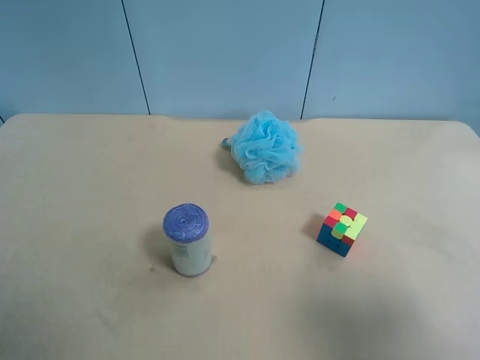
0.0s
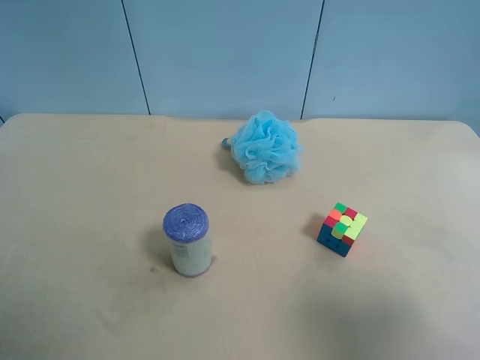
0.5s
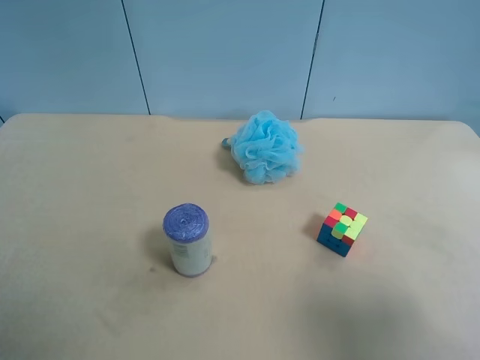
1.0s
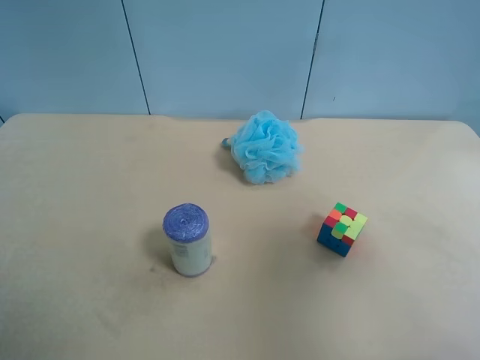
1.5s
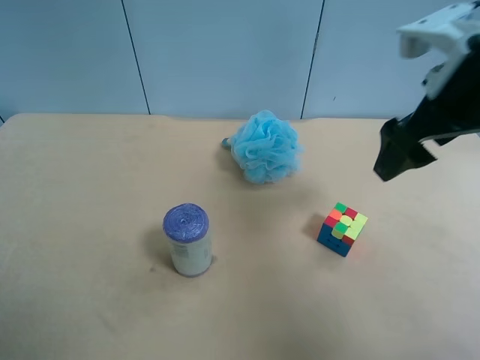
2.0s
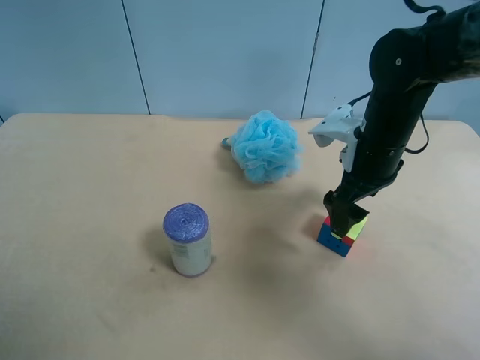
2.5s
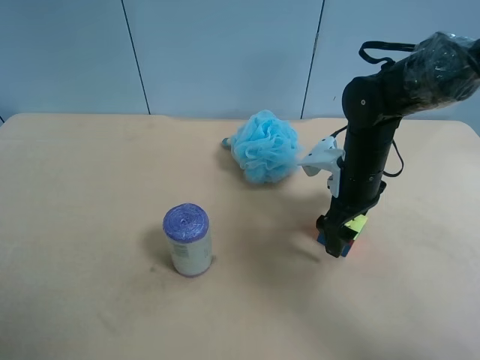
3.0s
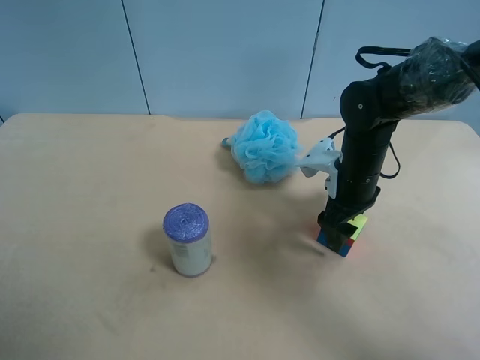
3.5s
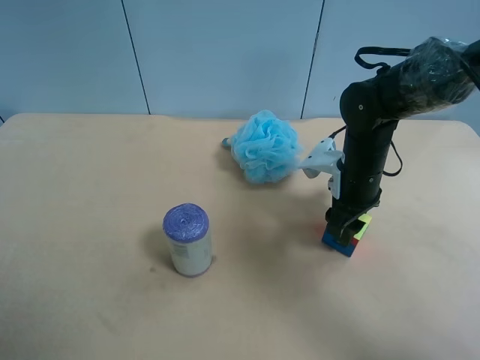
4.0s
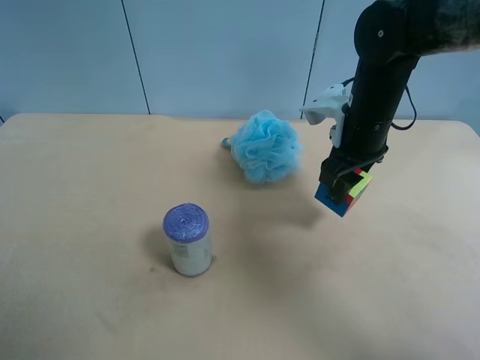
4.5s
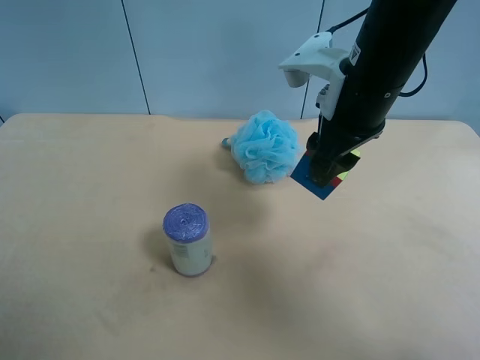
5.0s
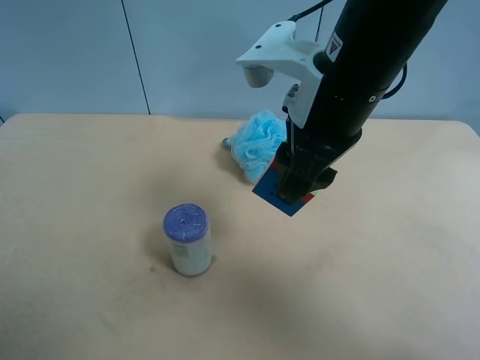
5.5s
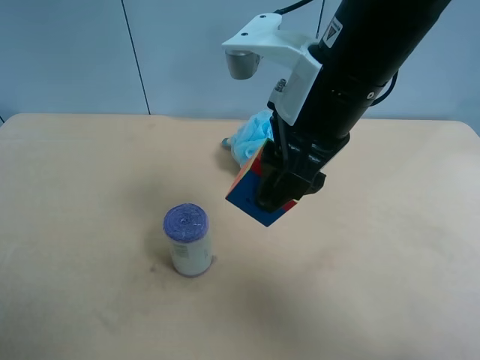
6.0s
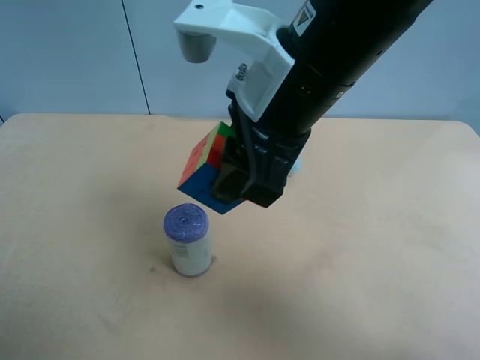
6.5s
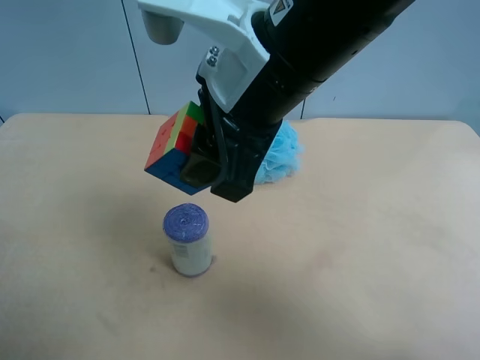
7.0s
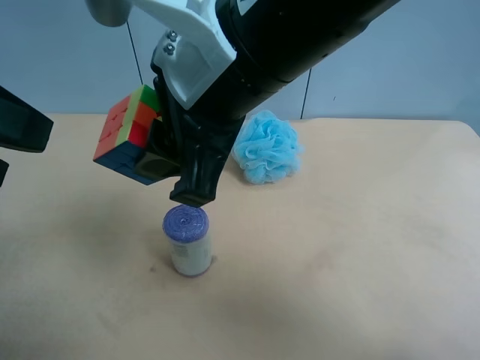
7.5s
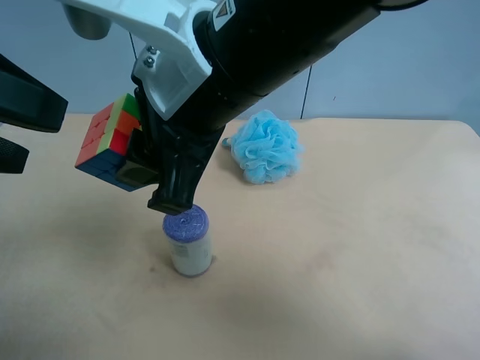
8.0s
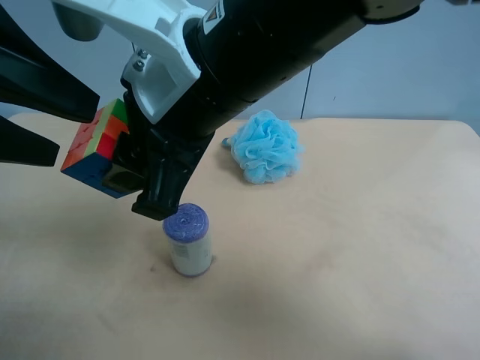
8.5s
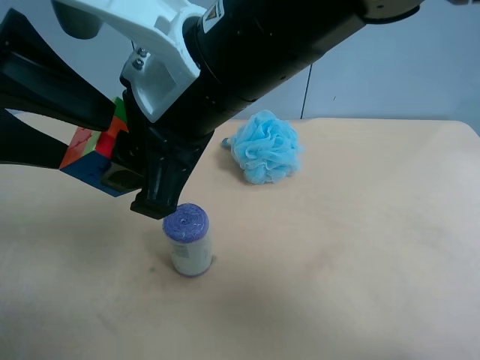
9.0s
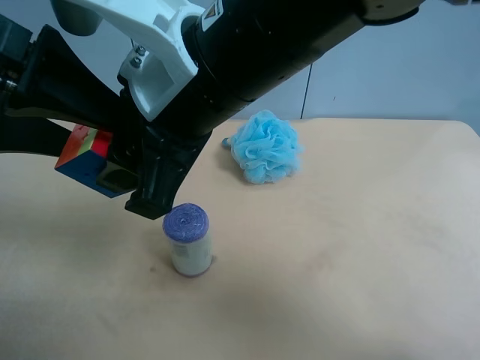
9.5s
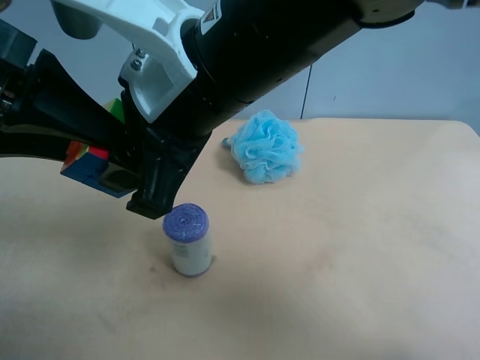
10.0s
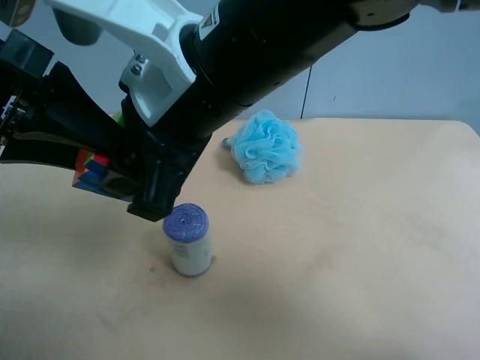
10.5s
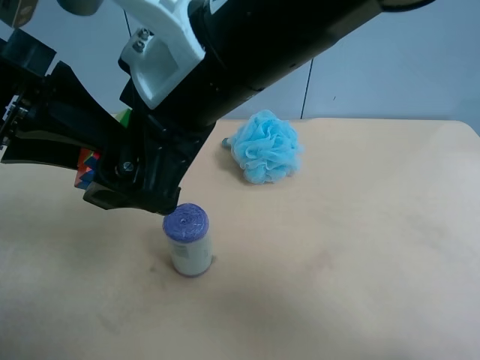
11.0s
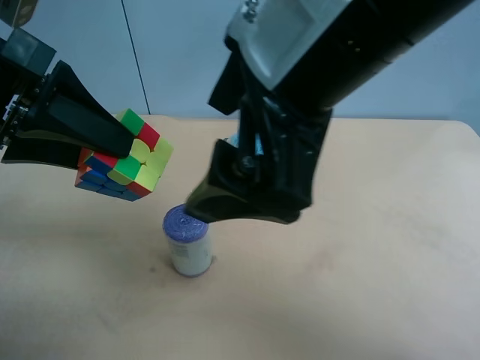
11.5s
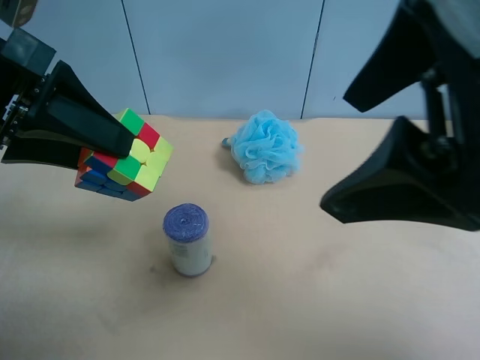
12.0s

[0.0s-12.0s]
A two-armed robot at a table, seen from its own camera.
Task of the whole recording: use the right gripper to pick up the item and transfer it from the right gripper to the left gripper.
0.0s to 2.0s: The right gripper is displaced forward by about 25 cm.
2.0s to 4.0s: The right gripper is displaced downward by roughly 15 cm, and closes.
4.0s to 6.0s: The right gripper travels upward, to the left and backward by approximately 25 cm.
6.0s to 8.0s: The left gripper moves forward, upward and to the right, about 20 cm; the right gripper goes some 10 cm to the left.
8.0s to 10.0s: The left gripper changes place by some 5 cm, and closes its fingers.
10.0s to 12.0s: The right gripper heads to the right, upward and backward, covering approximately 15 cm, and opens up.

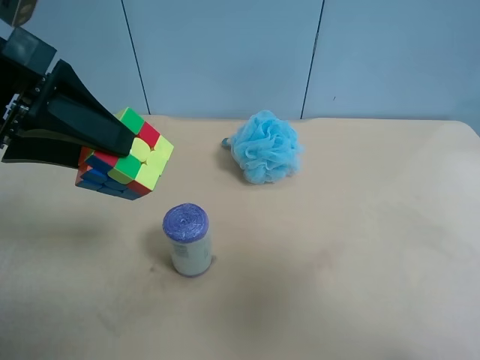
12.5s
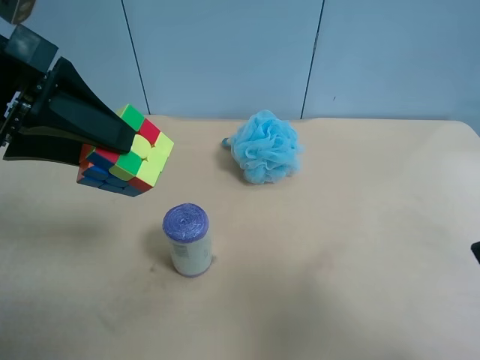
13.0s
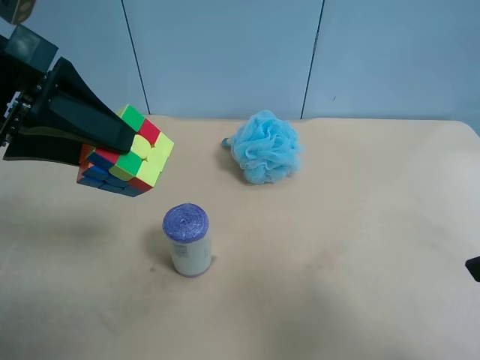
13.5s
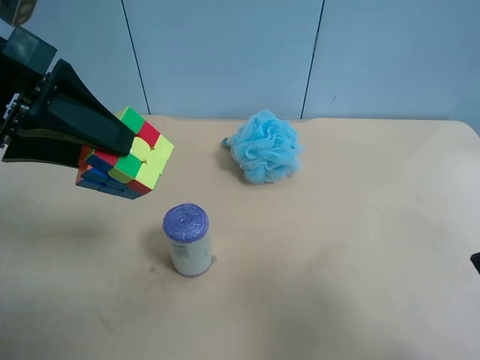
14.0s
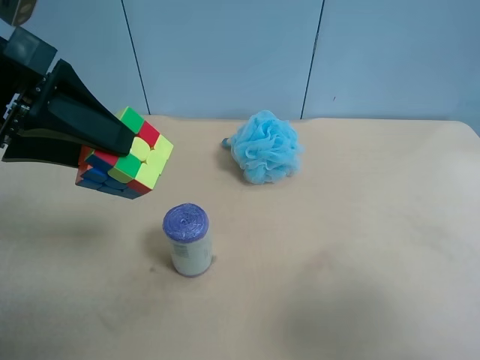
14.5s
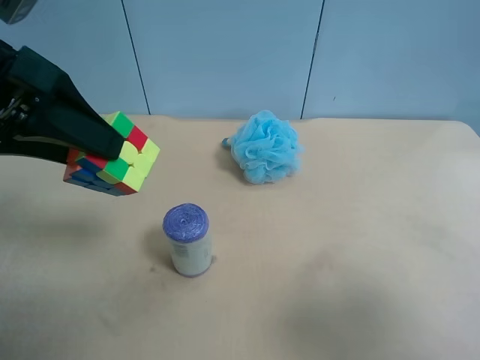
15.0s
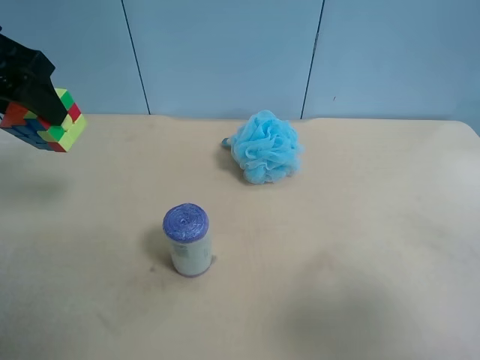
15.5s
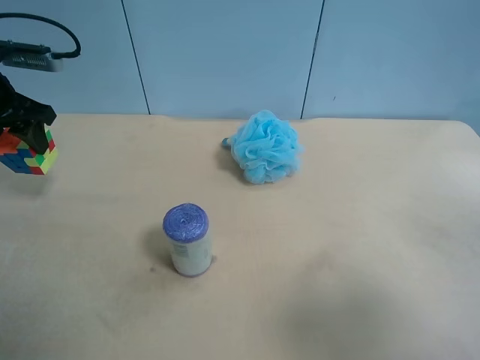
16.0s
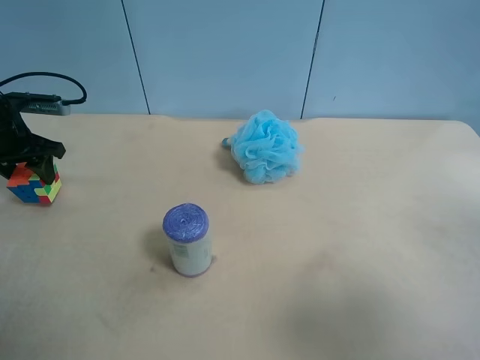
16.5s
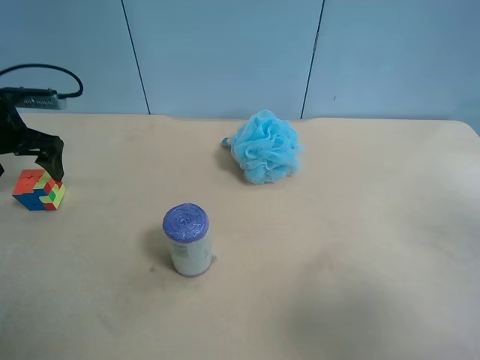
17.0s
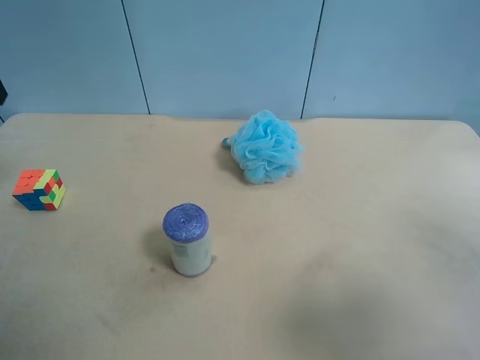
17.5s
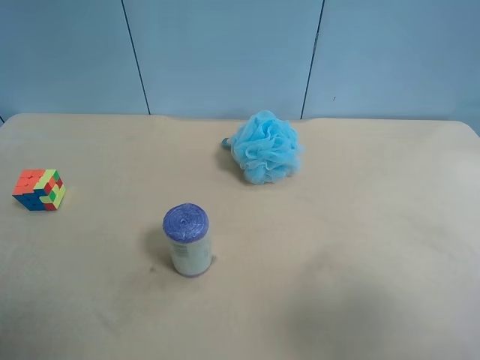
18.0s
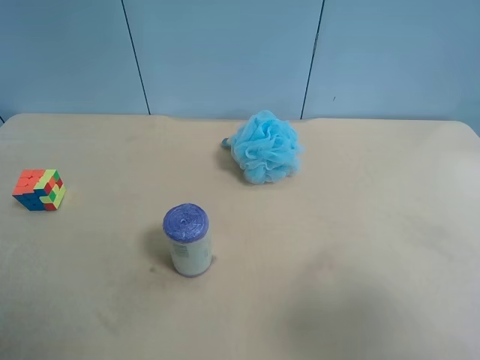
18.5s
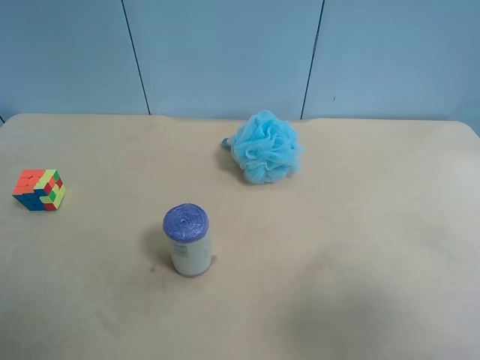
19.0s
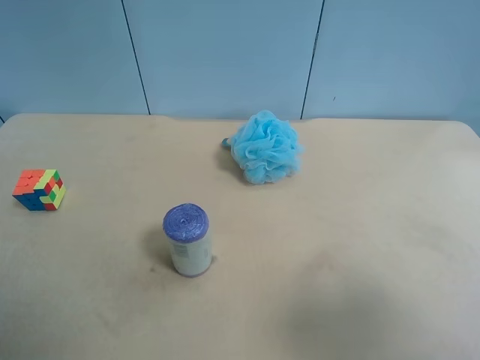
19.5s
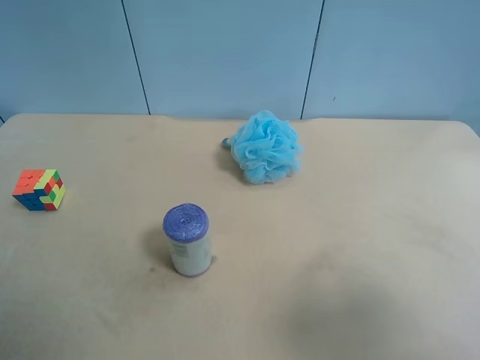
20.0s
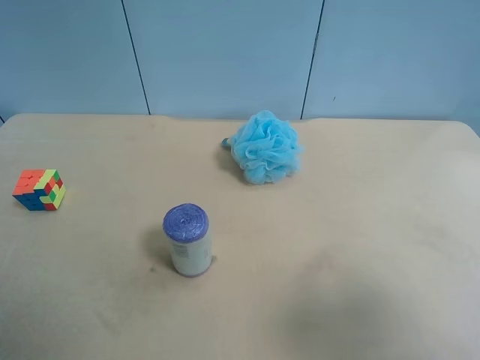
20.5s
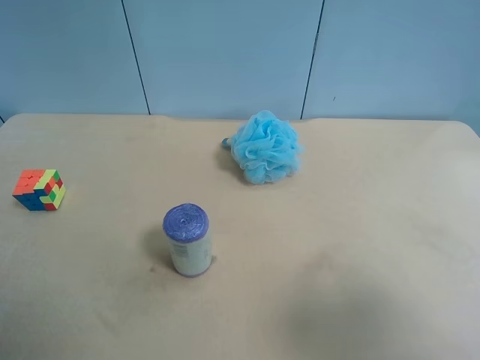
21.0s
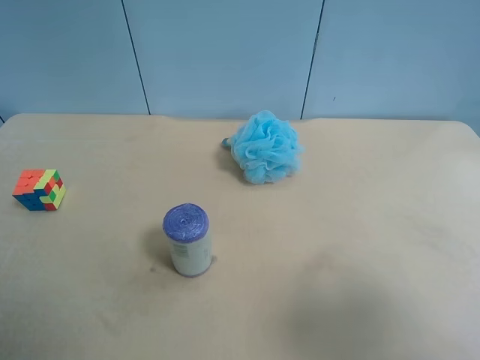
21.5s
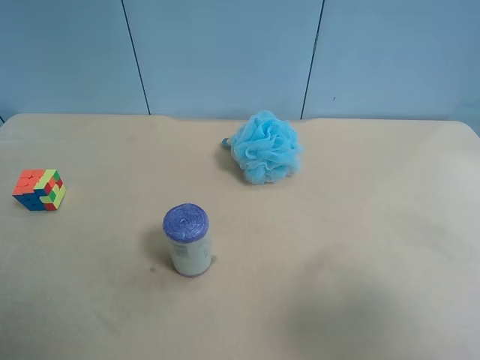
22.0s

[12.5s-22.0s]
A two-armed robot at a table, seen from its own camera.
Task of the whole recording: use the right gripper to pick up the item and transfer it from the right gripper to the left gripper.
12.5s to 14.5s: The right gripper shifts some 5 cm downward.
14.5s to 16.5s: The left gripper moves forward, downward and to the left, roughly 30 cm.
16.5s to 18.0s: The left gripper moves backward and upward, about 30 cm, and opens up.

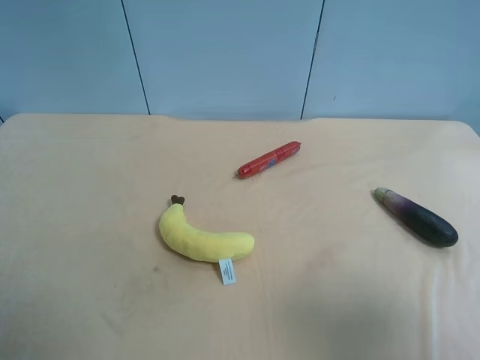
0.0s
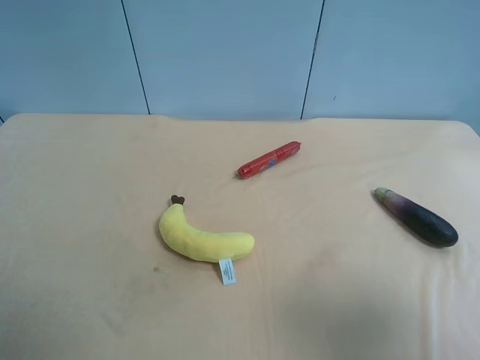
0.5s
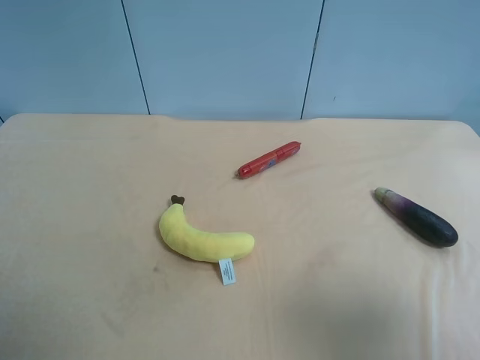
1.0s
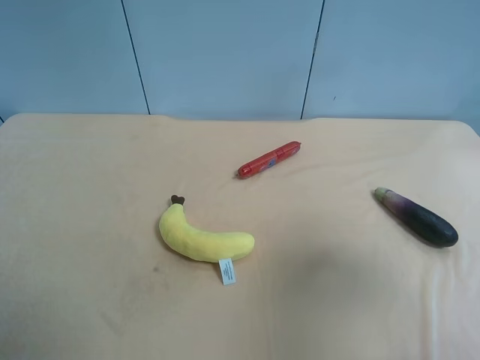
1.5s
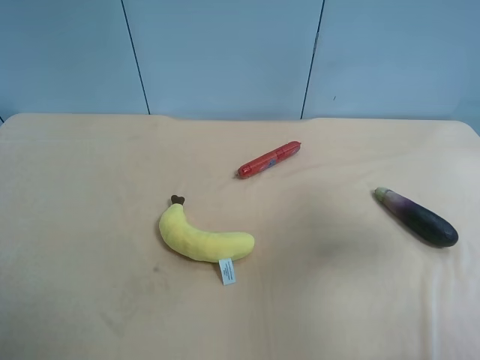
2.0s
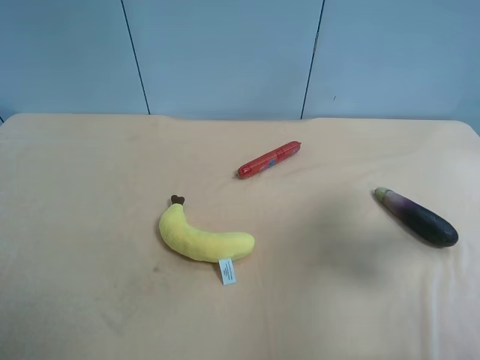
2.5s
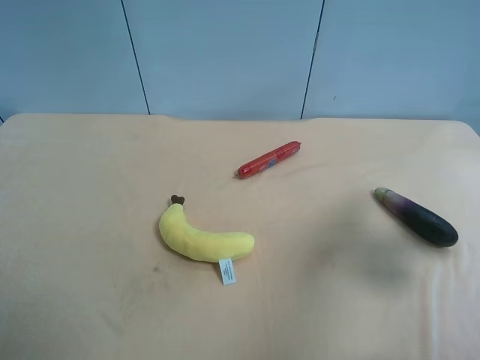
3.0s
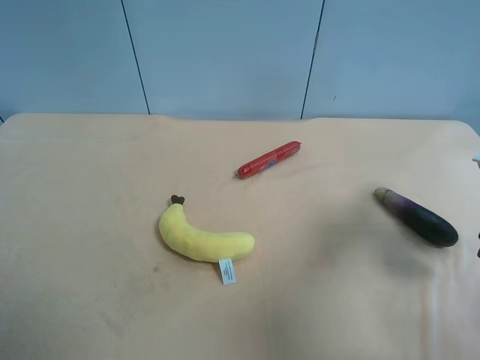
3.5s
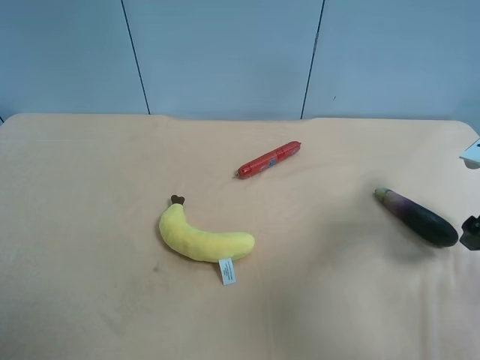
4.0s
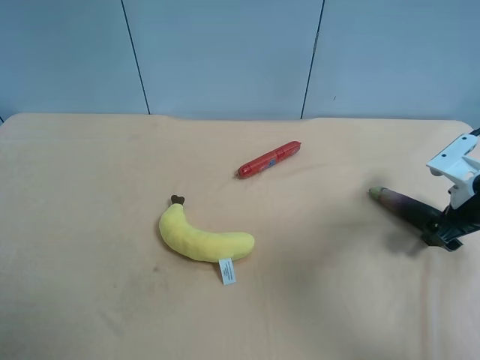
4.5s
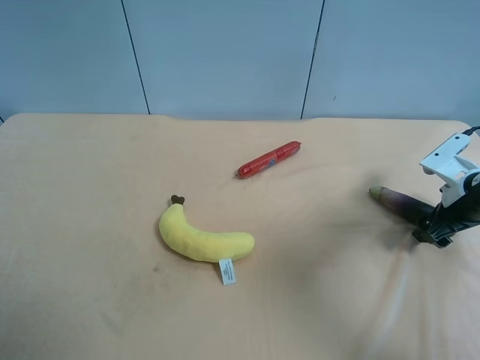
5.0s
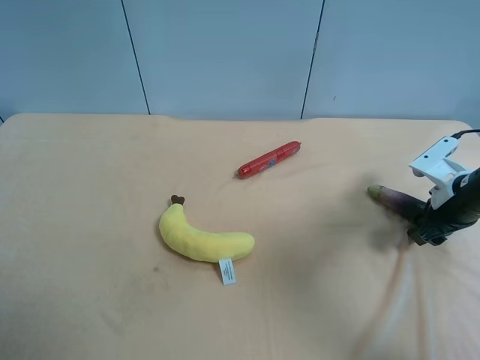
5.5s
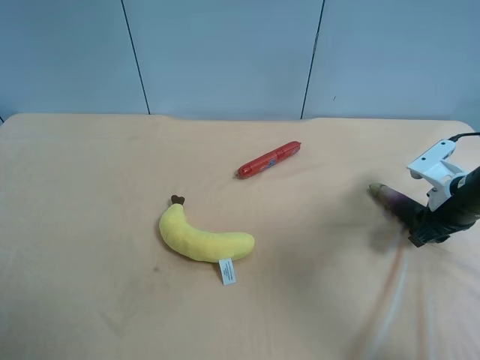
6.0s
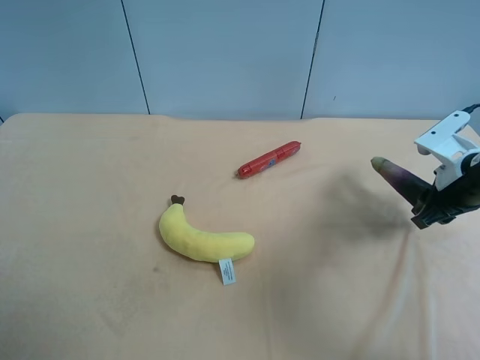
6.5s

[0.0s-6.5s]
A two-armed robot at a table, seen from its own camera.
Task of the whole recording: use the right gripper to pick up the item and transfer it from the right gripper to the left gripper.
0.0s to 2.0s: The right gripper heads forward, covering roughly 15 cm.
2.0s to 4.5s: The right gripper moves downward and forward, roughly 25 cm.
4.5s to 6.5s: The right gripper moves some 5 cm, and closes.
